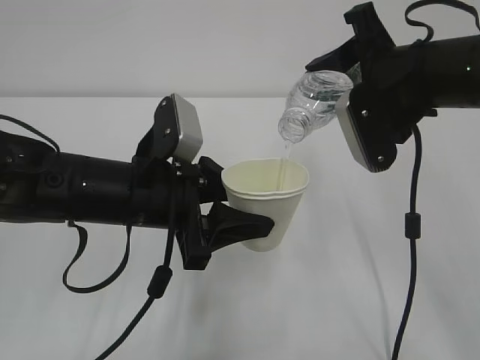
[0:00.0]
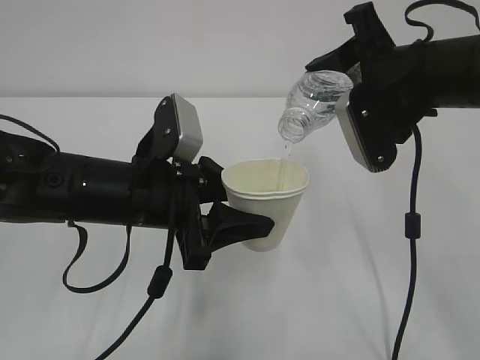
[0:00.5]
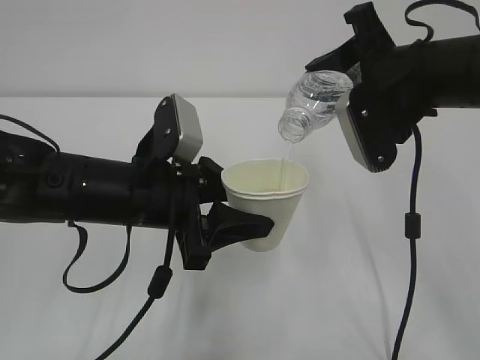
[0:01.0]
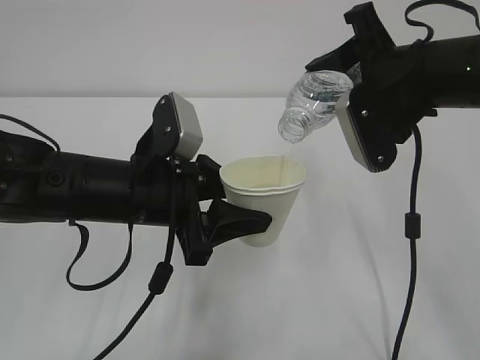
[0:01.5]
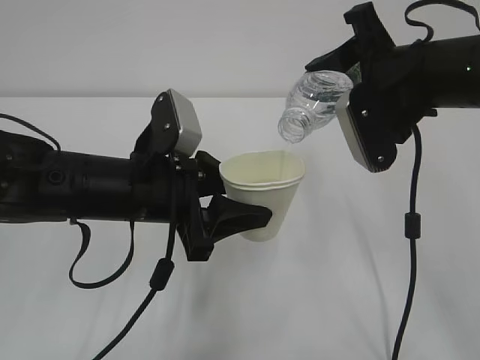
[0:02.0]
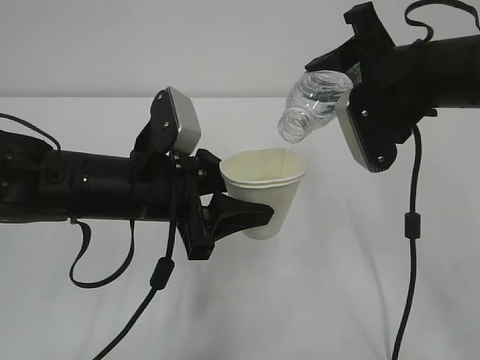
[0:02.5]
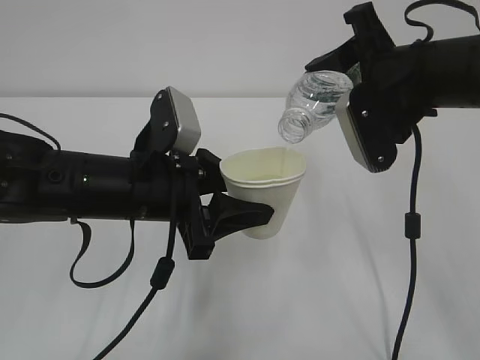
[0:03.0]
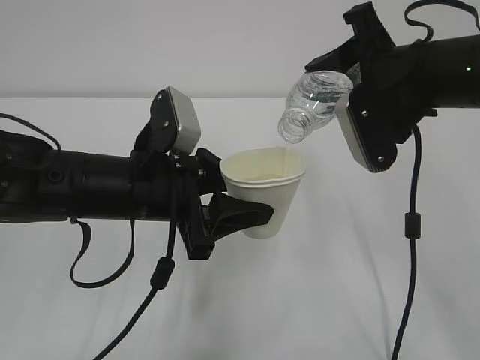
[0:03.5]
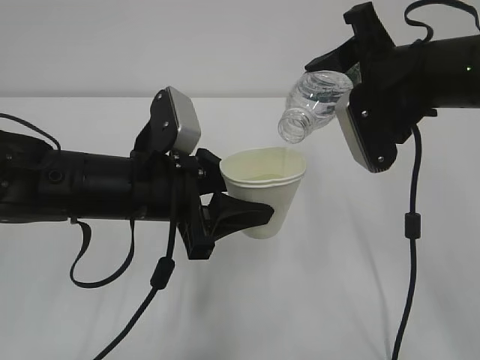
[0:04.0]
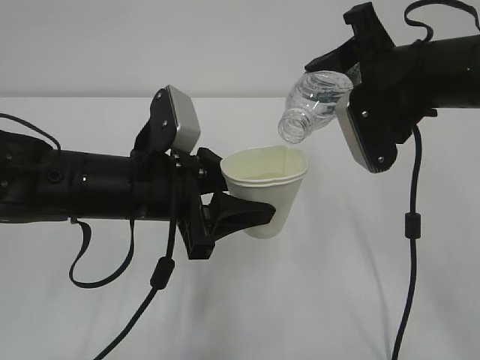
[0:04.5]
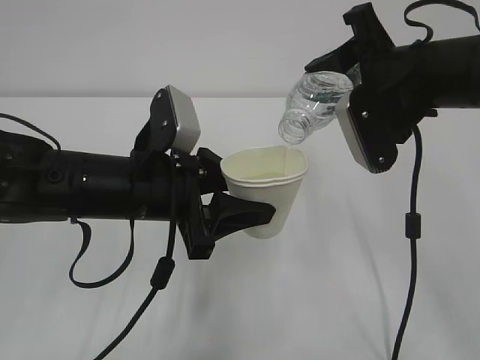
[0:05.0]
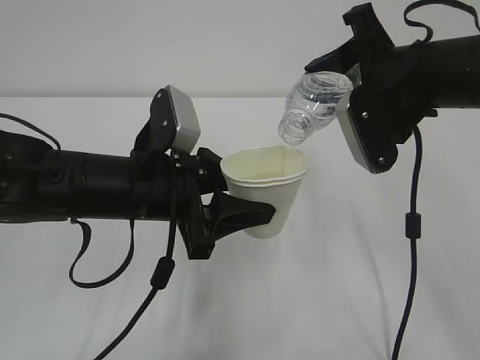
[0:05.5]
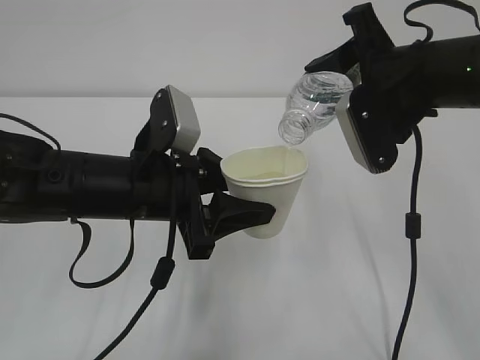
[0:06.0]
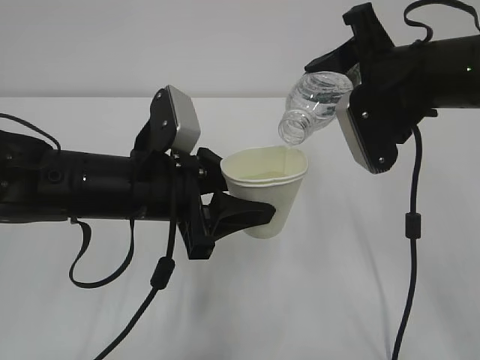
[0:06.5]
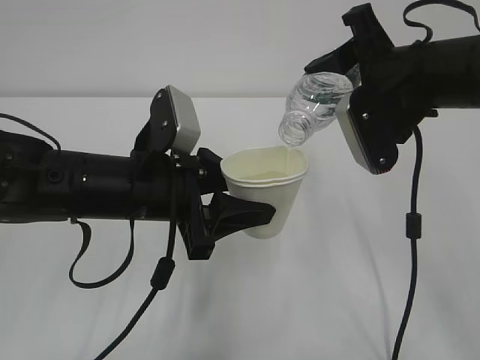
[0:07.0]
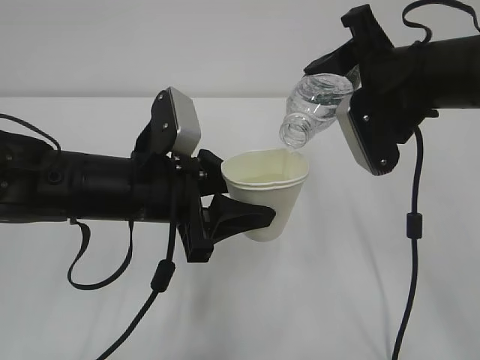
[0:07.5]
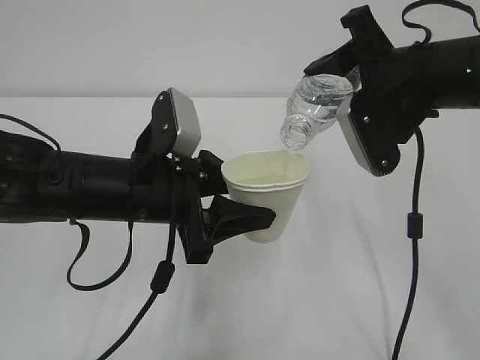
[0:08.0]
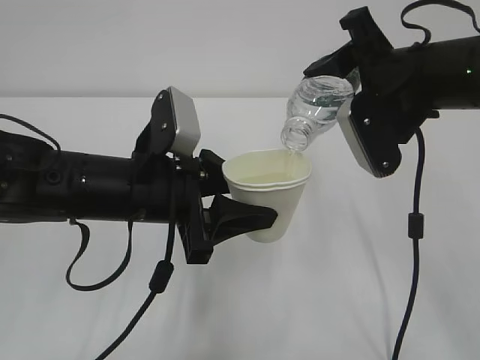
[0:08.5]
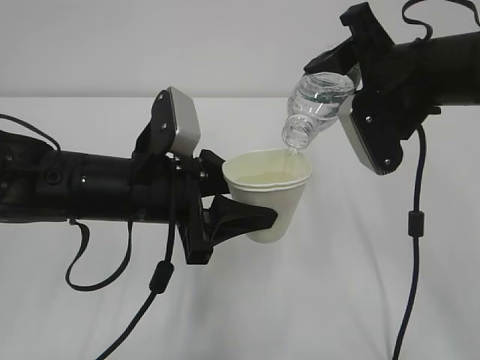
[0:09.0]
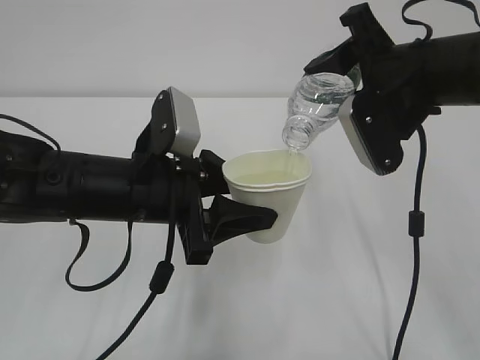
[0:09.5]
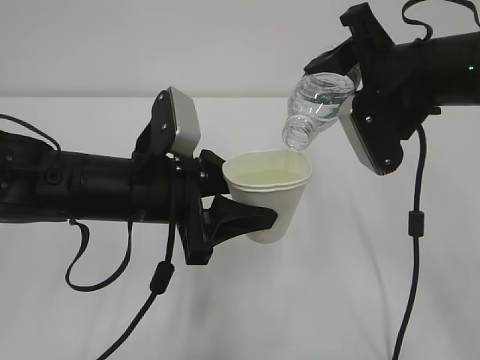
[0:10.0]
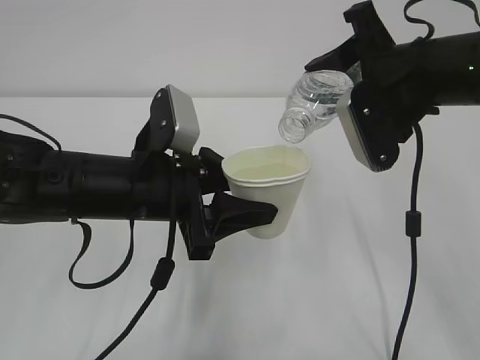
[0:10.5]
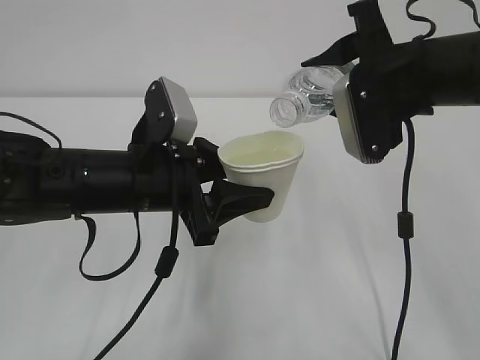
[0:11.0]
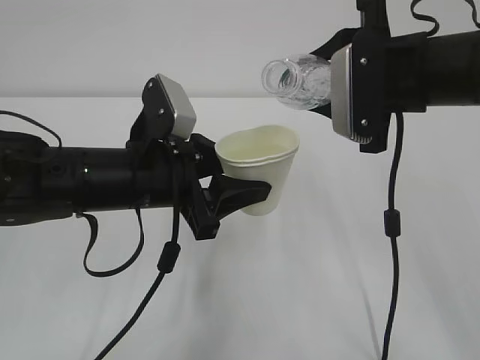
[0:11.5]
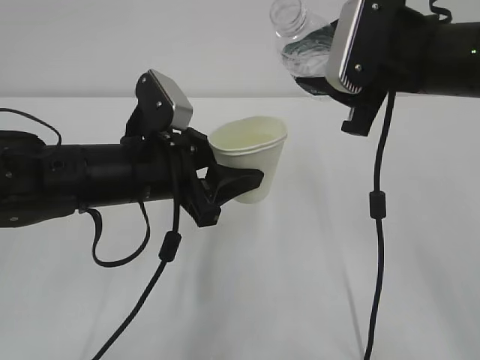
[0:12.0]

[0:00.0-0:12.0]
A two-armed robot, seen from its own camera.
0:00.0 to 0:08.0: Neither gripper changes place.
0:08.0 to 0:10.0: Both grippers stay put.

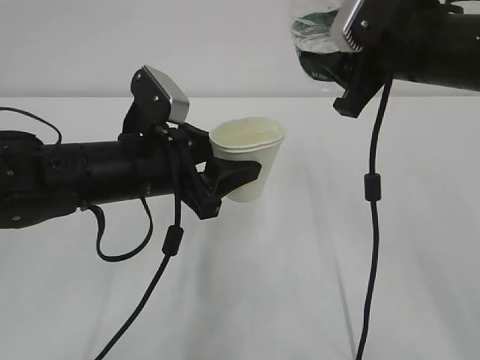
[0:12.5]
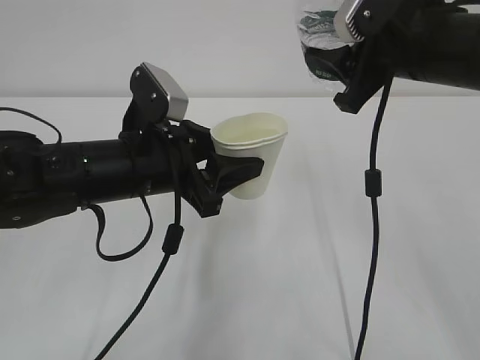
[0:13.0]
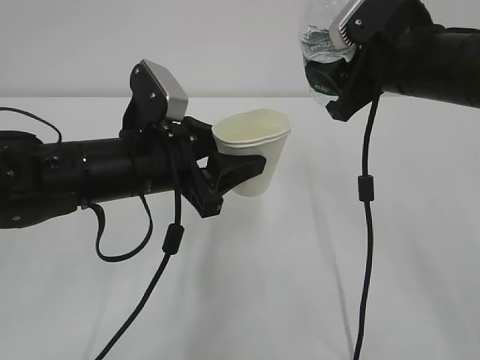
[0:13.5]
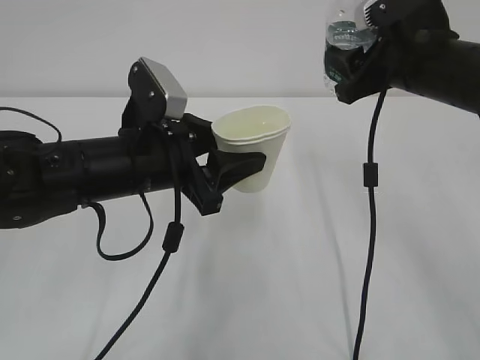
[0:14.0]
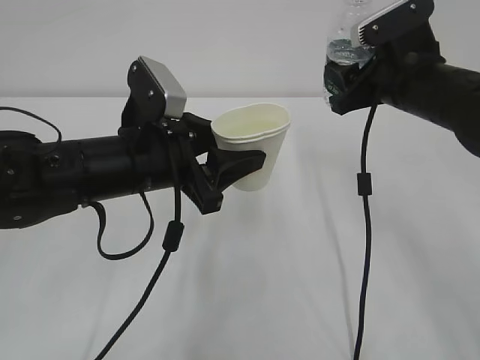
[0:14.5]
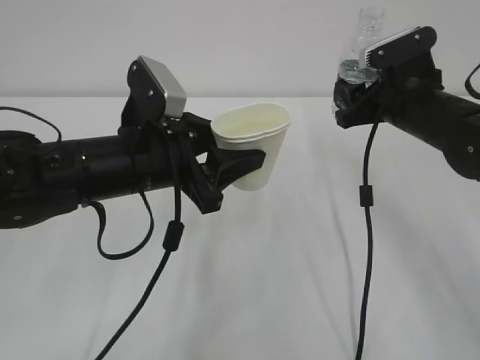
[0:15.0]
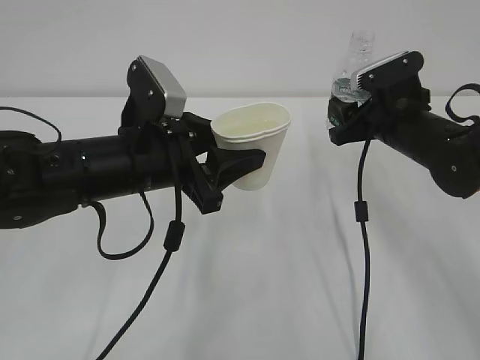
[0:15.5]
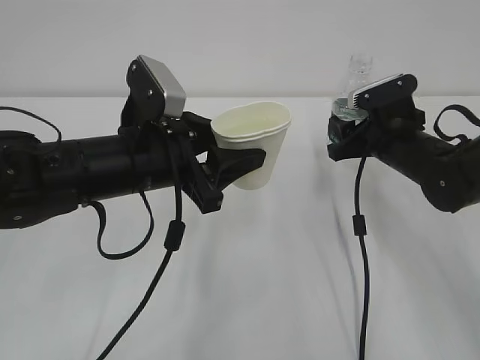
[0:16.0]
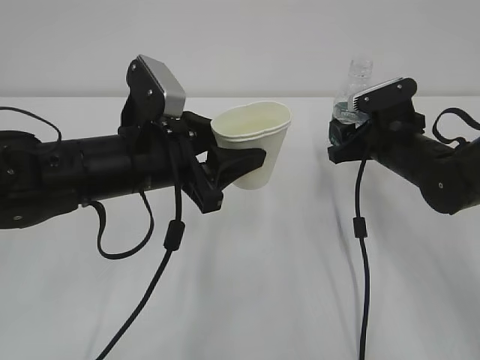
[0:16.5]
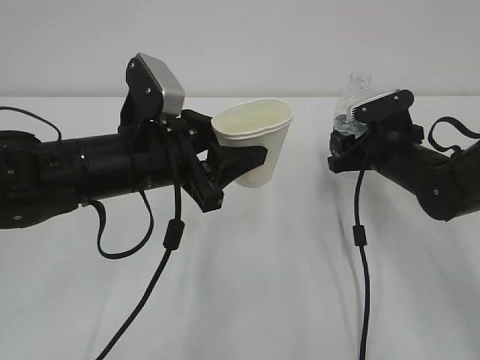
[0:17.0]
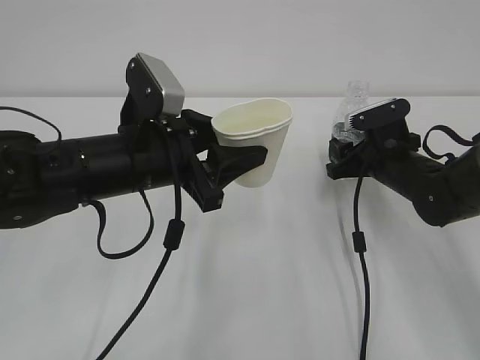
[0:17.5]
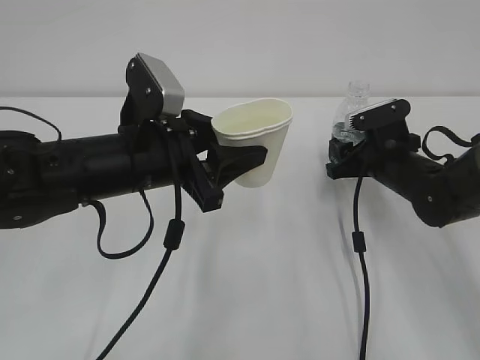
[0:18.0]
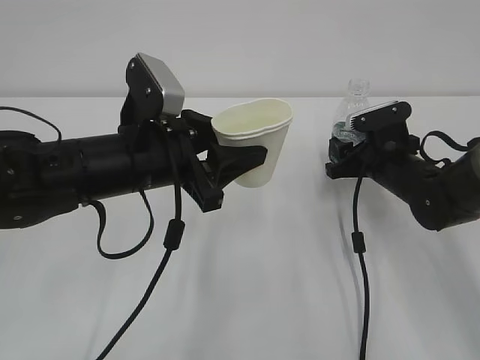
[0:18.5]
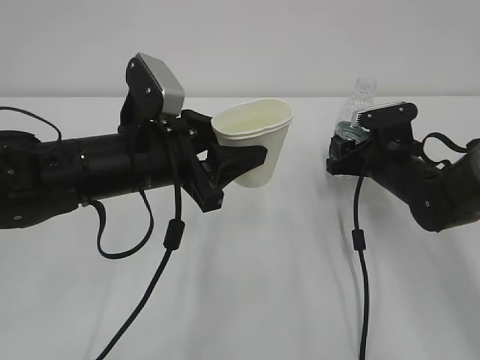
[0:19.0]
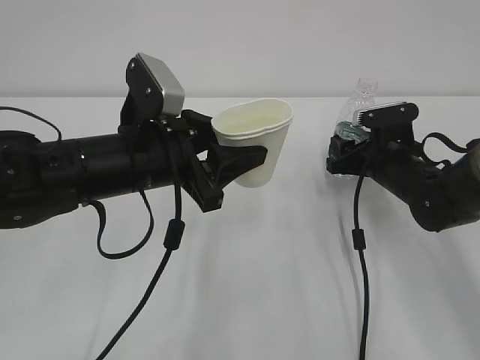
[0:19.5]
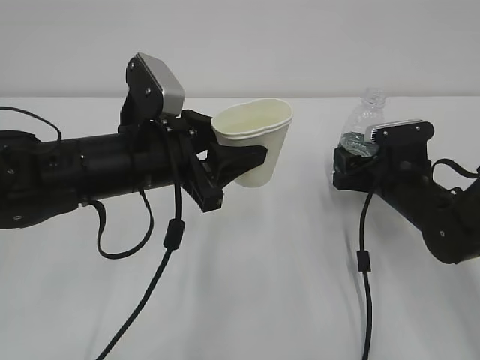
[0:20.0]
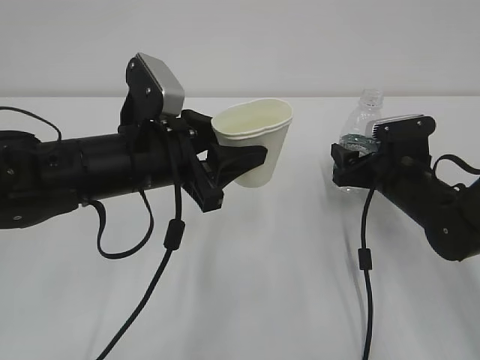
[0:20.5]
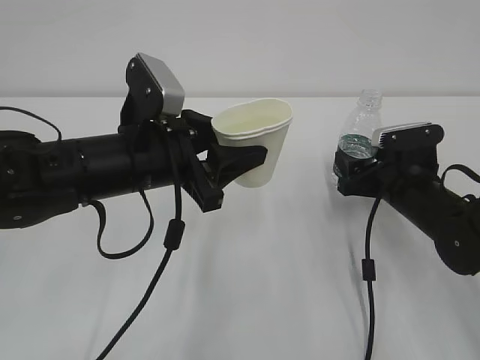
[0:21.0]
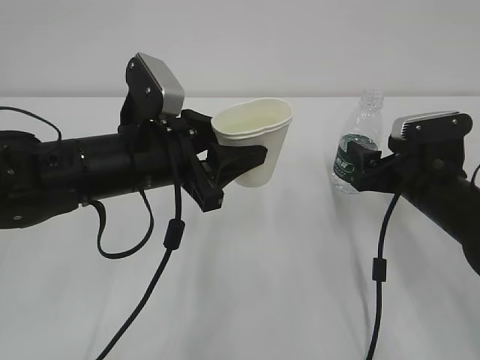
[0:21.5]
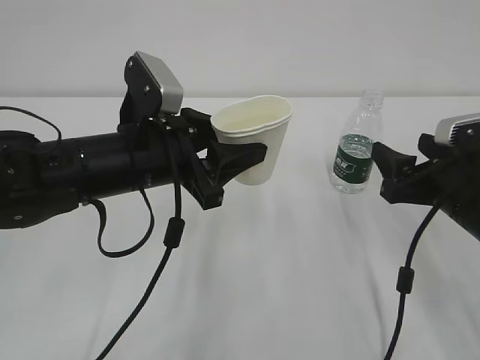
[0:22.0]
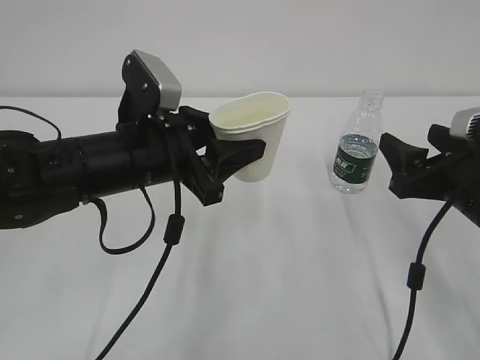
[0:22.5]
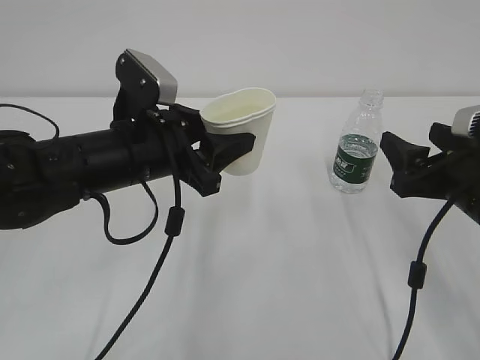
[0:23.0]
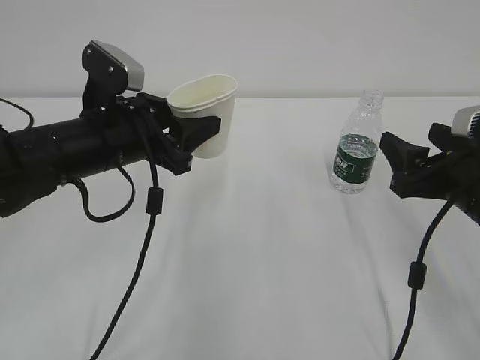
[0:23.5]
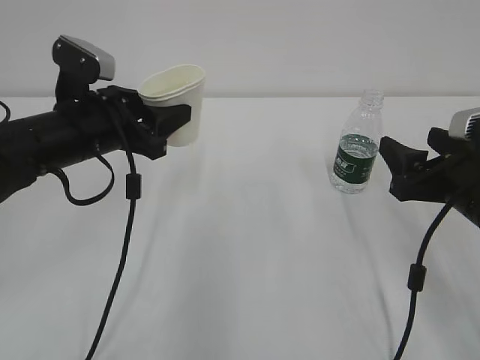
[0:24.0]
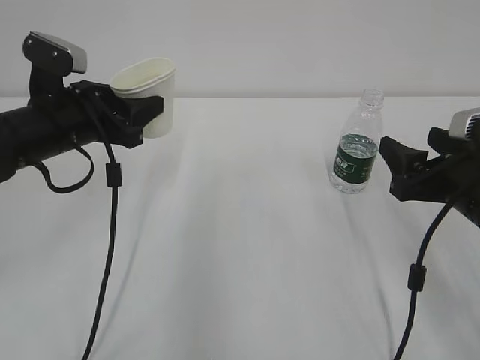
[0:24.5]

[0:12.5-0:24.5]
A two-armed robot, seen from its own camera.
0:12.5 to 0:14.5: The right gripper travels downward and forward by roughly 10 cm.
0:14.5 to 0:16.5: The right gripper heads downward, covering roughly 10 cm.
0:16.5 to 0:20.5: The grippers move only a little.
0:20.5 to 0:22.5: The right gripper is displaced backward and upward by approximately 15 cm.
0:22.5 to 0:24.5: The left gripper goes approximately 10 cm to the left and forward.

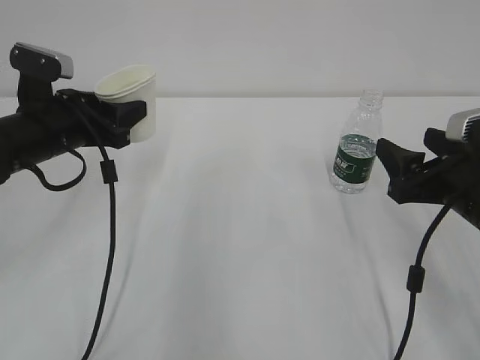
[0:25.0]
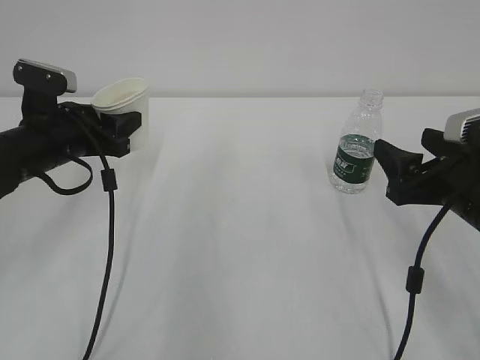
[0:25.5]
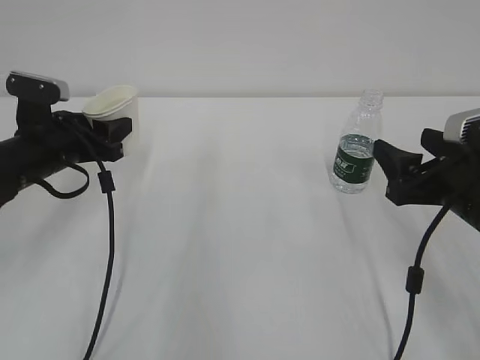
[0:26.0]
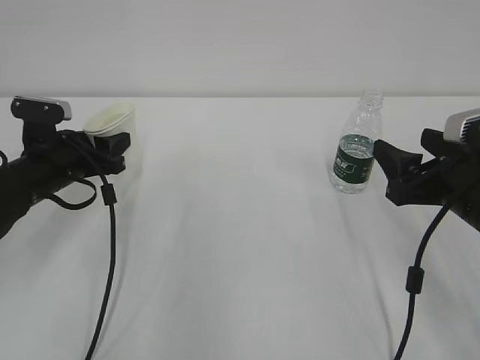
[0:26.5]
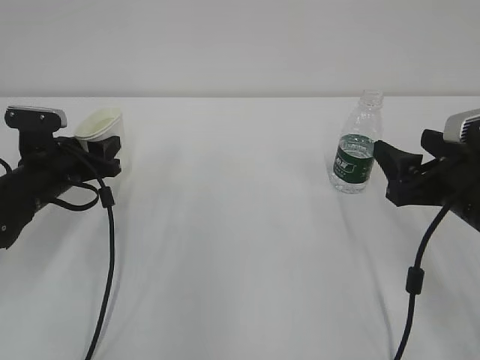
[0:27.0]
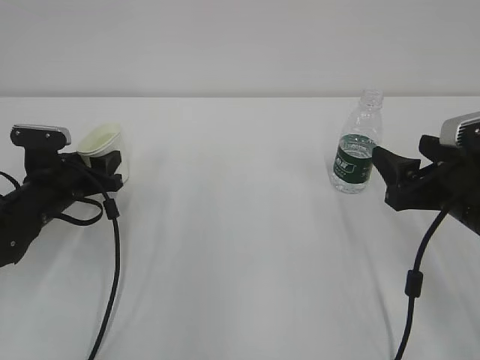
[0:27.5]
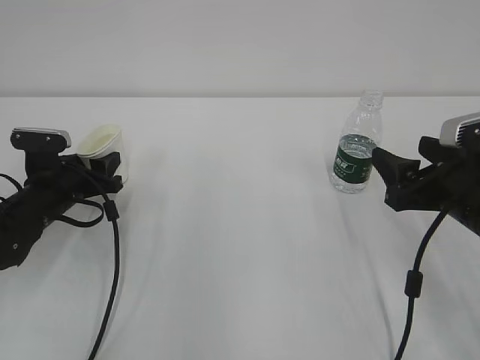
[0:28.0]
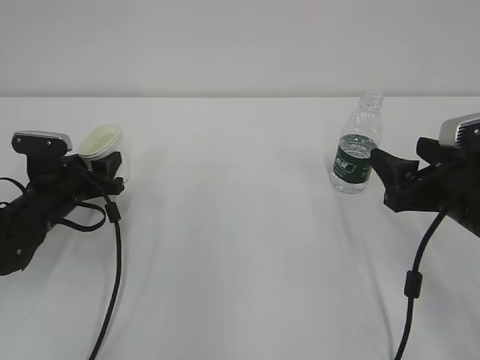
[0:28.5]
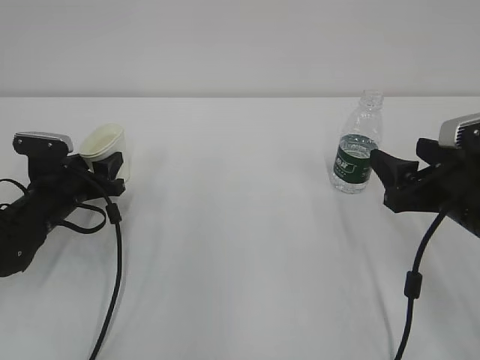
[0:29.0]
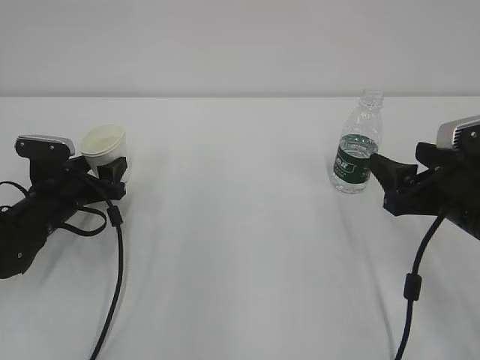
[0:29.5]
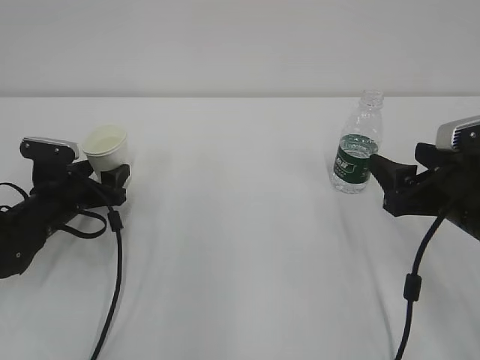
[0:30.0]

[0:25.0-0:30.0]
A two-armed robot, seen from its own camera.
0:25.0 to 0:27.5: The left gripper moves downward, about 10 cm.
0:27.5 to 0:30.0: The grippers make only small movements.
